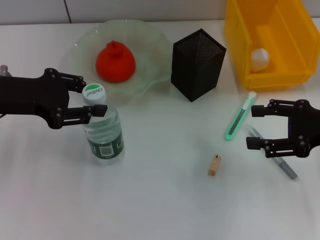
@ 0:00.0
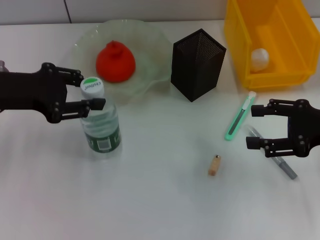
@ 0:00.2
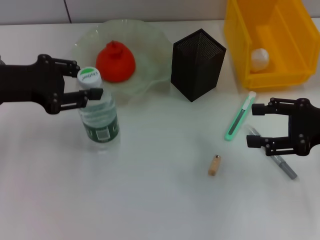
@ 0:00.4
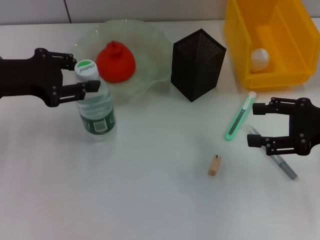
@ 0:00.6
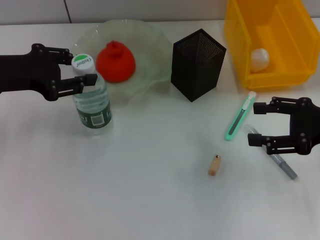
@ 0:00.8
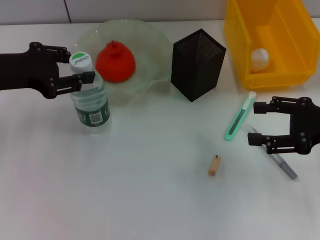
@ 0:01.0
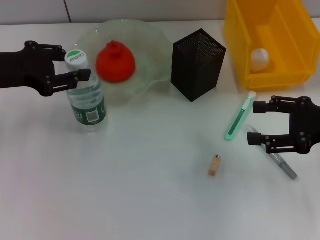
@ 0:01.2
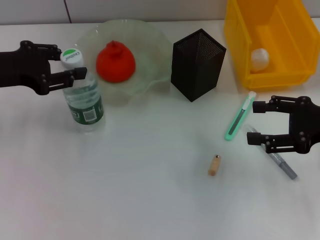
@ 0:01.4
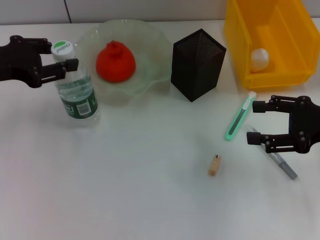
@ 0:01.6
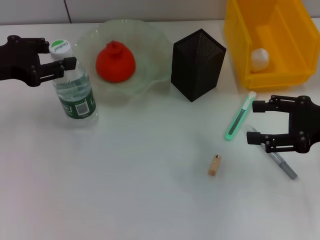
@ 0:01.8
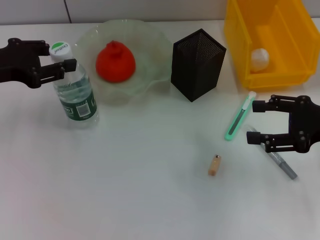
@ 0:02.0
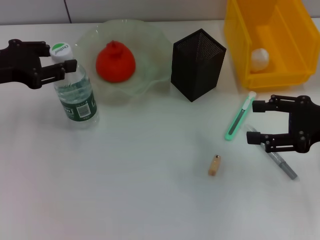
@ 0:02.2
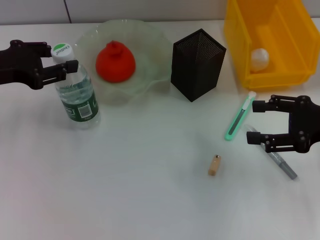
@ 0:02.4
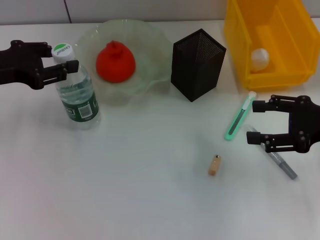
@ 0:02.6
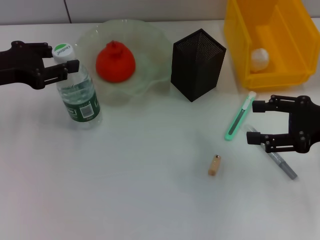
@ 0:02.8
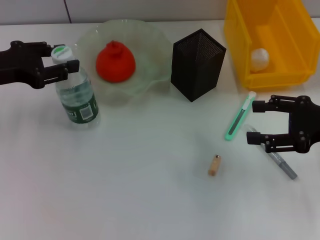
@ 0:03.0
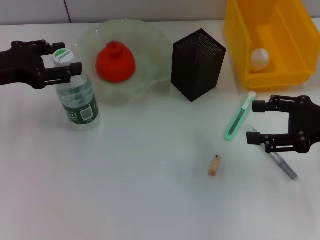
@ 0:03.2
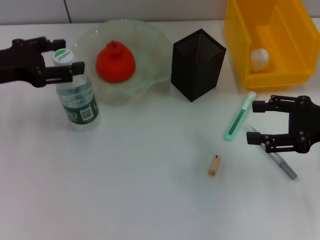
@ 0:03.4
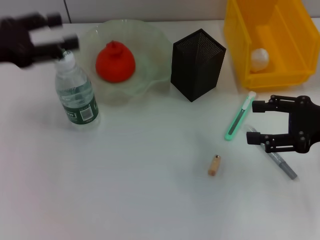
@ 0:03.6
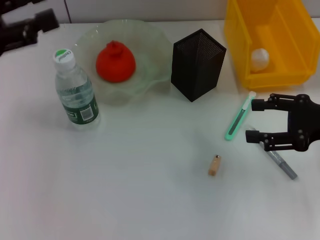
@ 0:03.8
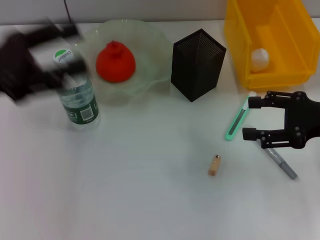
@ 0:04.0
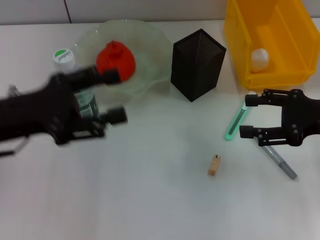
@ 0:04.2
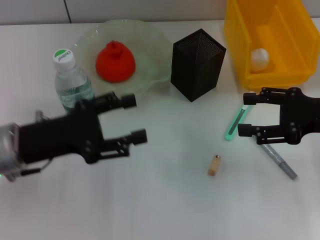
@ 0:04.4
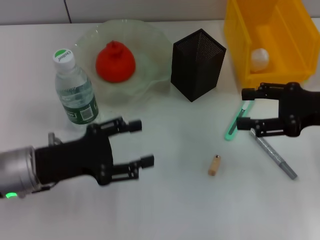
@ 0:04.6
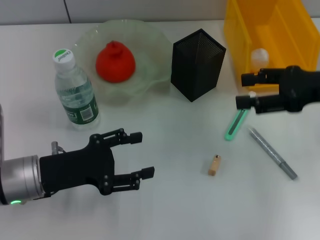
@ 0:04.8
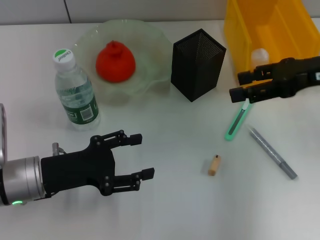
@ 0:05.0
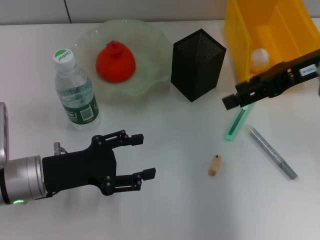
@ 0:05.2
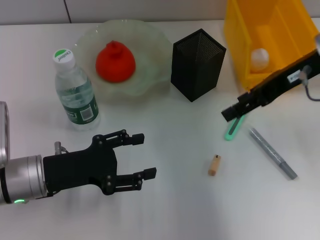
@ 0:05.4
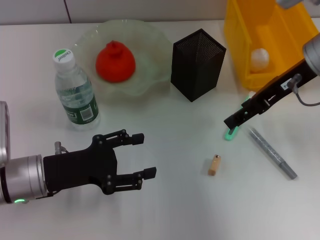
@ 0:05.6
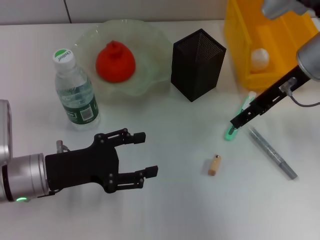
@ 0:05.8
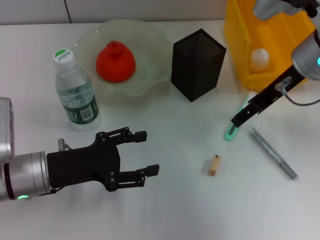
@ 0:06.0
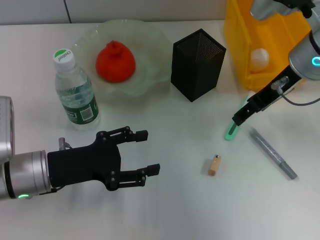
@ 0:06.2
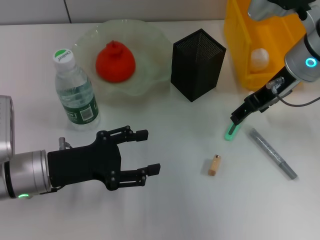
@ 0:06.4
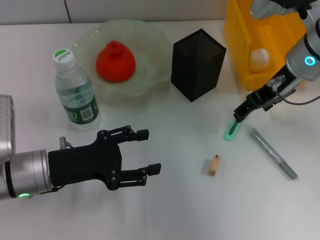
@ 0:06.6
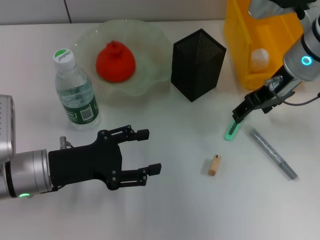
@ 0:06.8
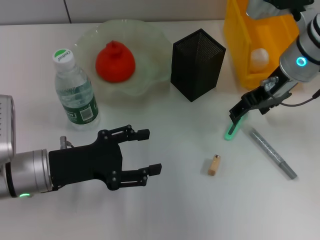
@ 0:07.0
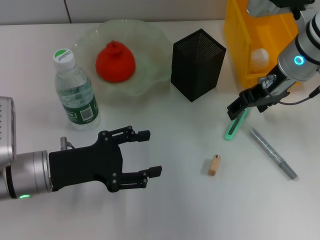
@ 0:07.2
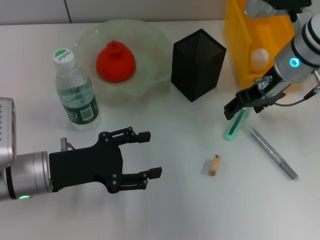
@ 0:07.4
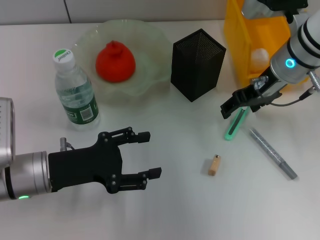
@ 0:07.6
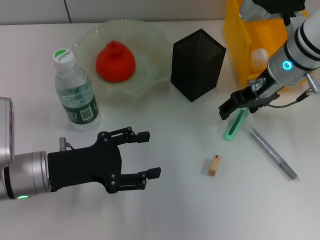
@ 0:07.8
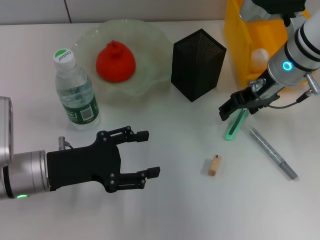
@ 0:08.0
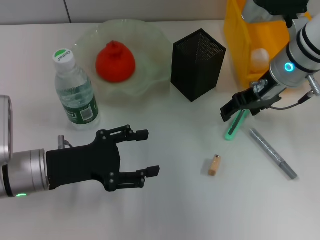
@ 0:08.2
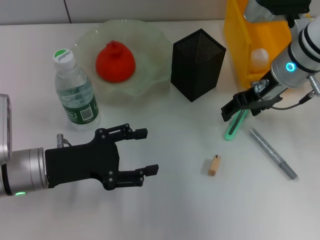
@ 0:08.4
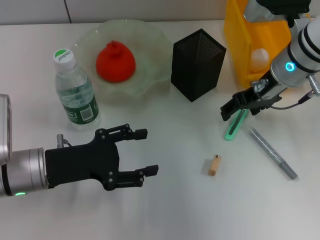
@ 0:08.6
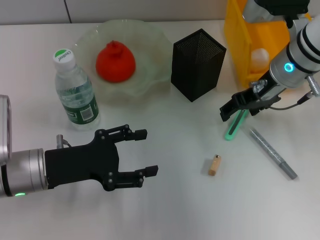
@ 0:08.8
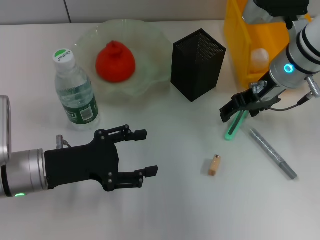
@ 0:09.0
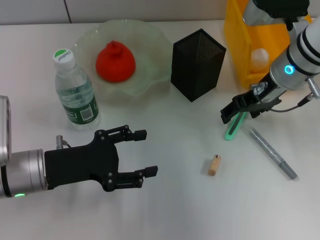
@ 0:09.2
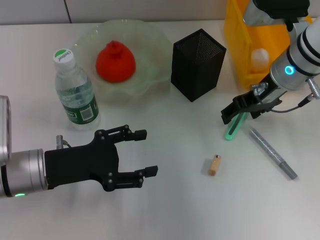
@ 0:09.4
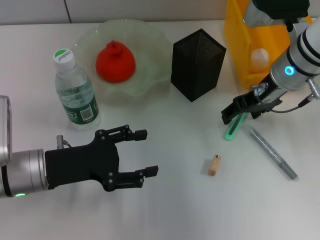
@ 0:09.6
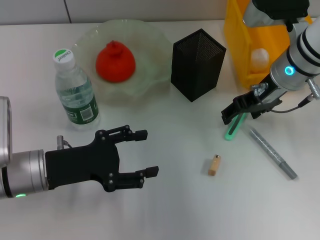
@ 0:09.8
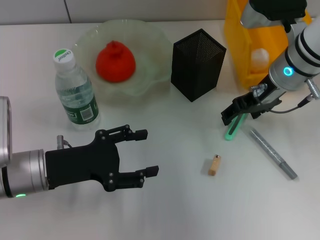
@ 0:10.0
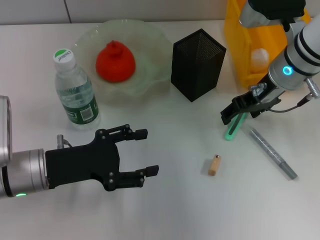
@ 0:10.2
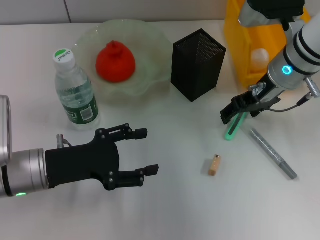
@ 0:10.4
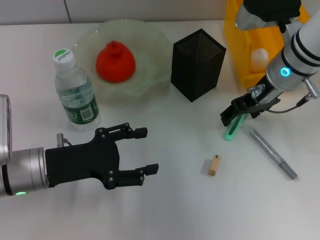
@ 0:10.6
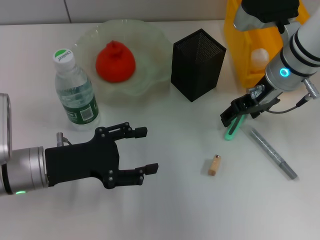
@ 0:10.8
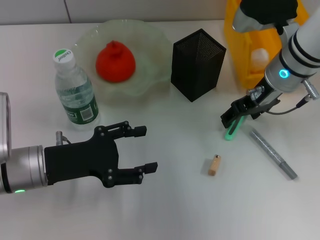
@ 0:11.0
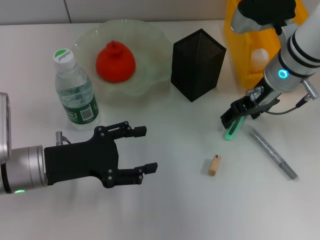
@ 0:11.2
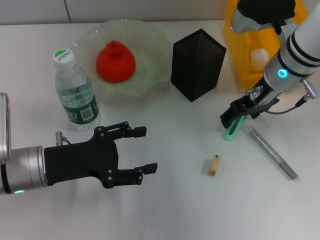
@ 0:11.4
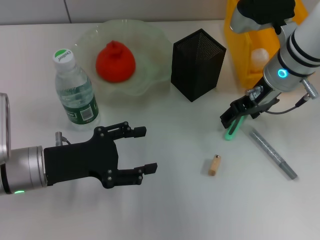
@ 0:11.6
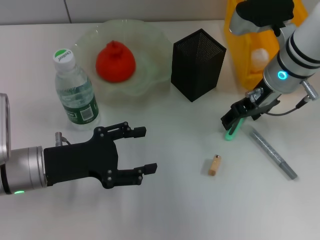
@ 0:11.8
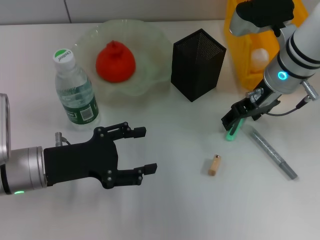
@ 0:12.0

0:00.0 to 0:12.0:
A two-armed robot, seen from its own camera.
Step, 0:00.0 to 0:03.4: Place the water bottle on the table with the left hand.
0:00.0 to 0:01.6: There are only small adjustments of the grippers.
0:01.6 to 0:03.0: There are only small adjustments of the grippers.
0:03.0 to 0:04.4: The left gripper moves backward, to the right and downward, roughly 10 cm, and opens.
0:04.4 to 0:06.0: The right gripper heads to the left, forward and upward, covering roughly 15 cm, while the left gripper changes place by approximately 5 cm.
0:07.6 to 0:10.4: The two grippers keep their place.
0:10.4 to 0:12.0: The grippers make only small movements.

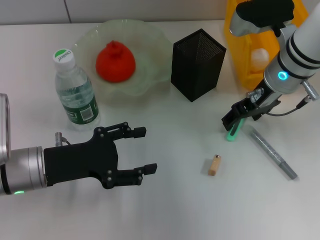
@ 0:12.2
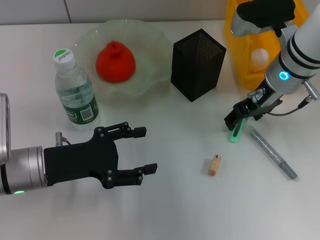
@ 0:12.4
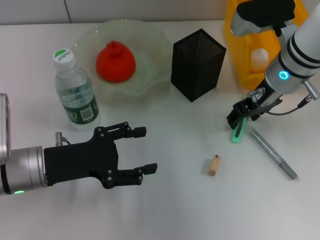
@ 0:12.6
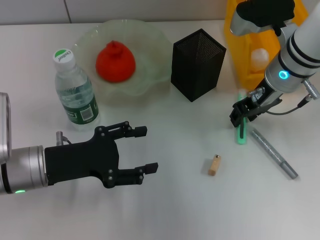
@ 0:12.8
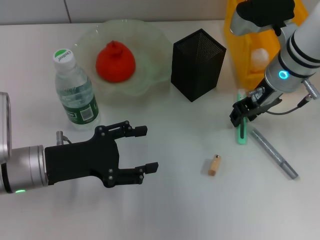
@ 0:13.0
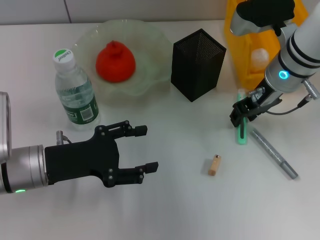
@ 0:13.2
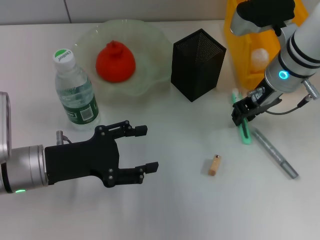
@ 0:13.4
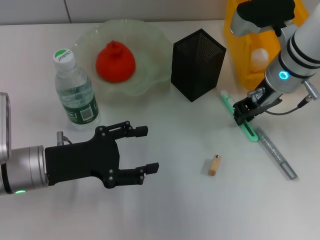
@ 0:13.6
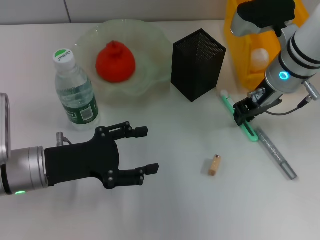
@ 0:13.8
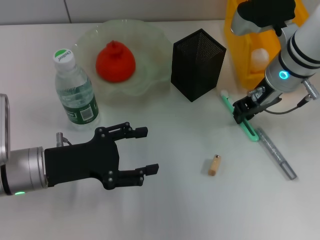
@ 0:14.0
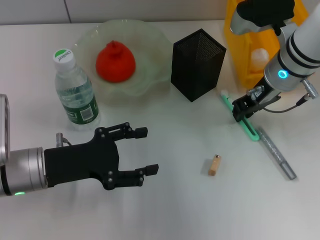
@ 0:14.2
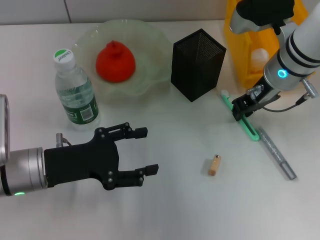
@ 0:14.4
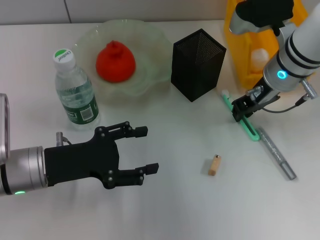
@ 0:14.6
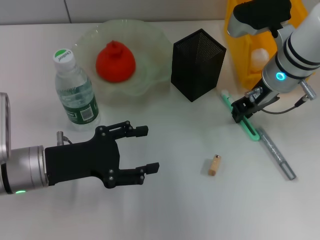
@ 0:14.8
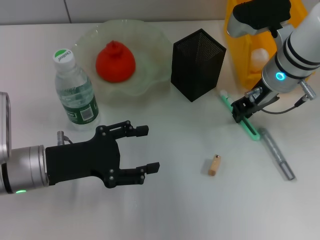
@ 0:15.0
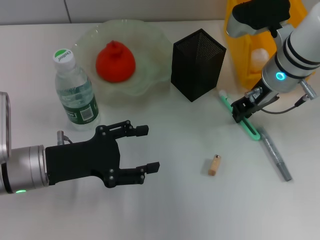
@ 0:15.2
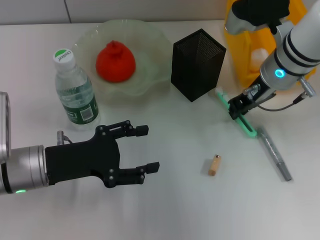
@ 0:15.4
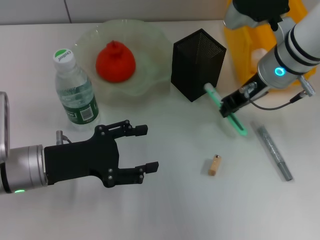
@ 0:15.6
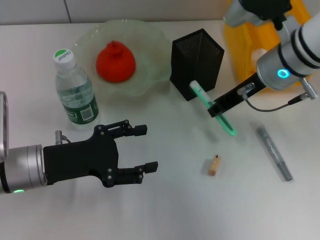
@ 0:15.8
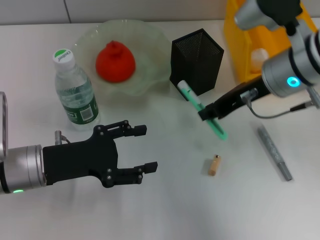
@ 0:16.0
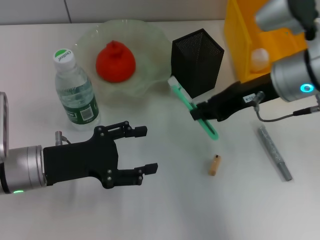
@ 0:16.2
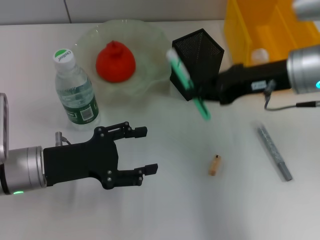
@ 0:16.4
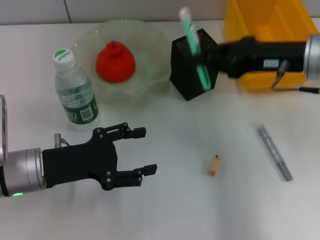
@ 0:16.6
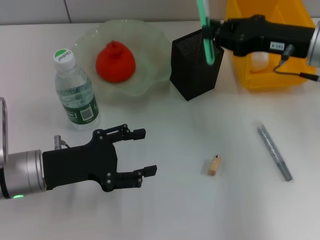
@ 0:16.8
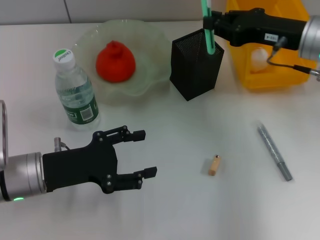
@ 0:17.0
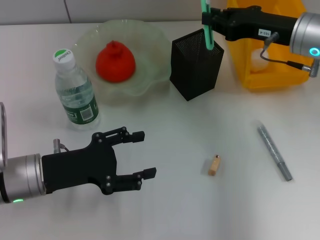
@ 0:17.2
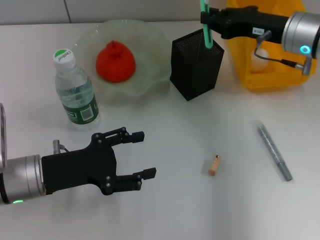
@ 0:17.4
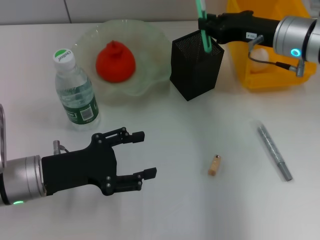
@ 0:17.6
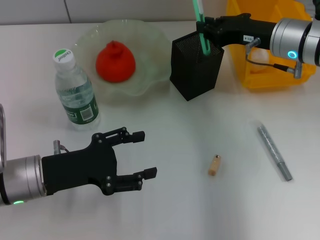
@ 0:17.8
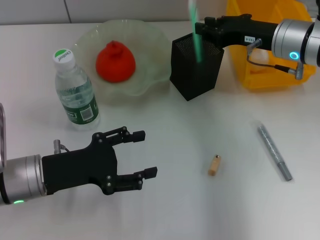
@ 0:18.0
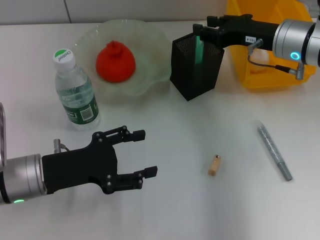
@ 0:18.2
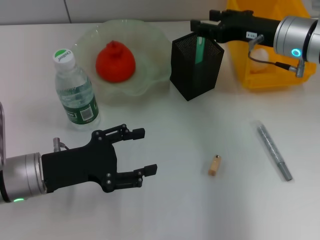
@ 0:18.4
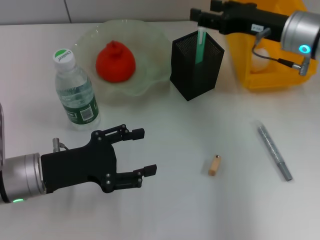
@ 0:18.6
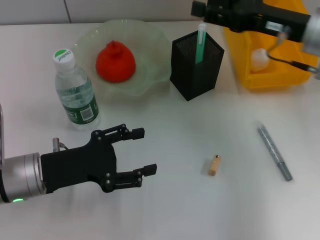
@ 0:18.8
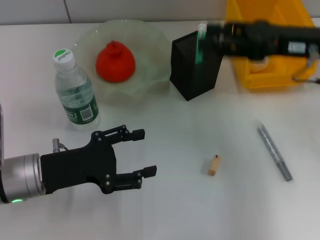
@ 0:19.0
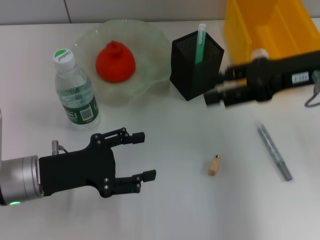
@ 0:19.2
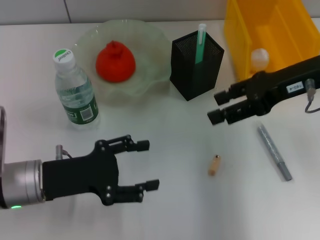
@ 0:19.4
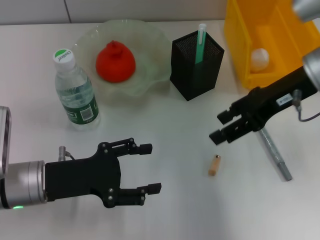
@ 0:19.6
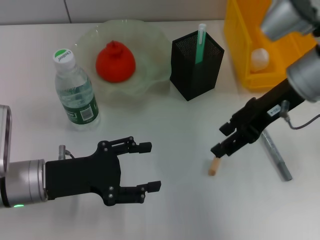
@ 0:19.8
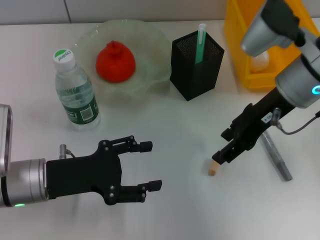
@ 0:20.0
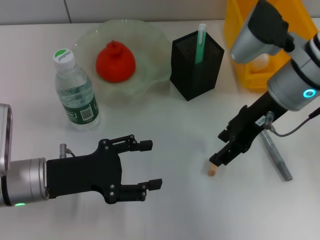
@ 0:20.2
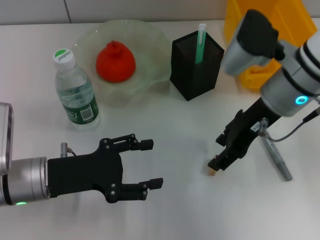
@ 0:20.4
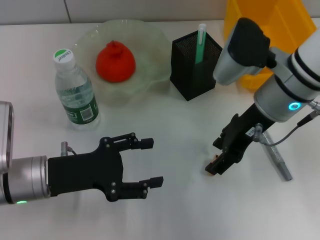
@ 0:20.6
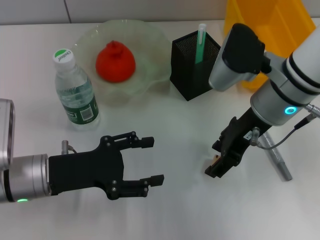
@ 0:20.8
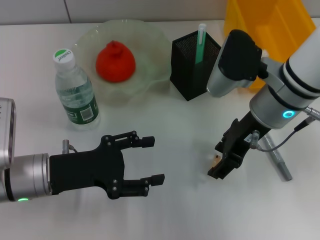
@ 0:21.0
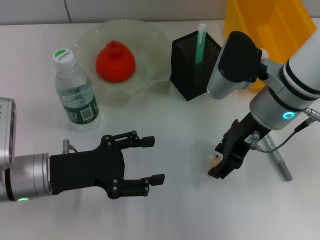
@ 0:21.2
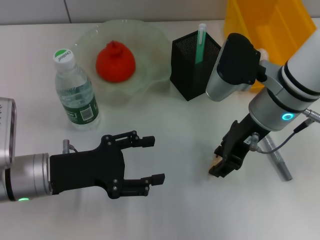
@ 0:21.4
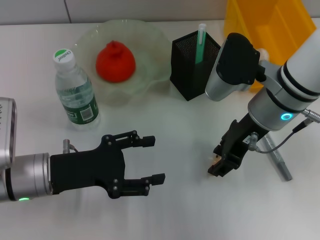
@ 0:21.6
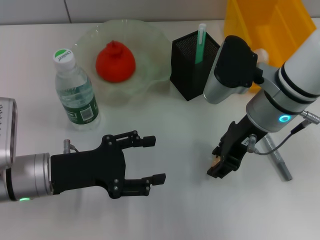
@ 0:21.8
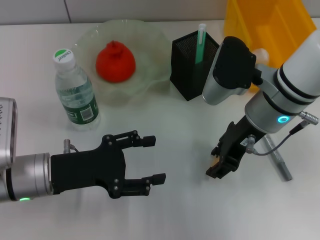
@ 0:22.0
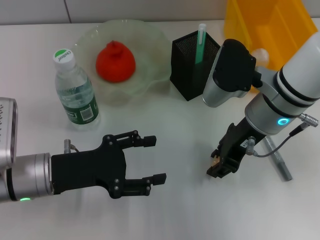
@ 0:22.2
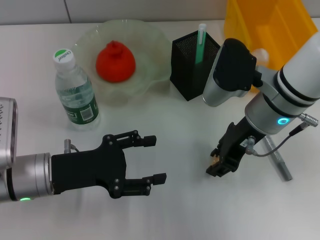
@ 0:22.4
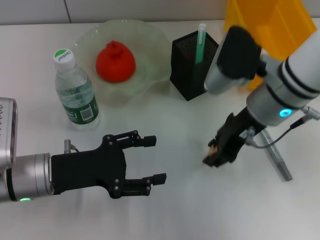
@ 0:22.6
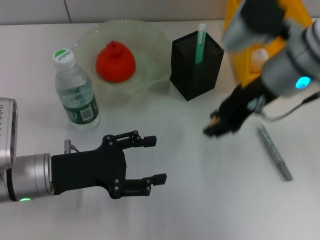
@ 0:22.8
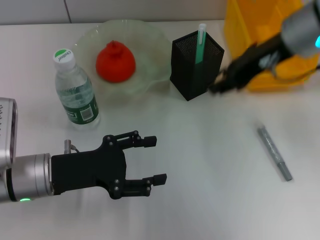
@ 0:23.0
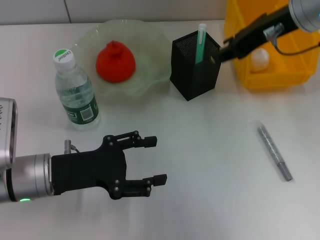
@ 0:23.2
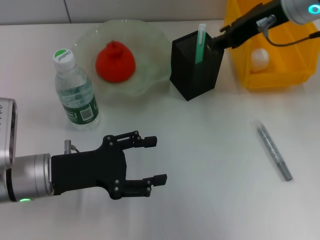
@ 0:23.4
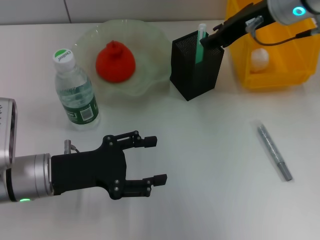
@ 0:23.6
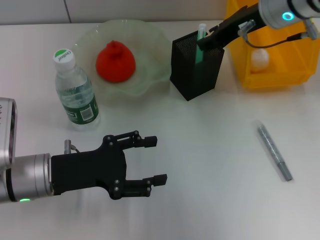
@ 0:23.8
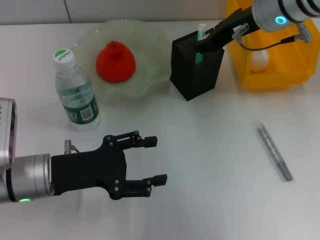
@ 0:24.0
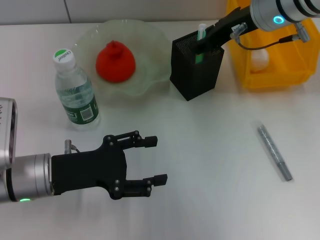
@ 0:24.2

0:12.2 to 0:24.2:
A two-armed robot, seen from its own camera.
Step, 0:12.2 to 0:15.0: Grab the blue utility knife with the right hand.
Step, 0:15.2 to 0:18.2: Place the blue utility knife into the pen holder with the right hand.
Step, 0:18.4 to 0:22.2: Grab the eraser with the right hand.
Step, 0:22.4 to 0:24.0: Put the eraser into the pen holder with the right hand.
0:12.2 to 0:13.8: The right gripper closes its fingers.
0:13.8 to 0:15.2: Both grippers stay about where they are.
0:15.2 to 0:16.6: The right gripper goes roughly 10 cm to the right and backward.
0:16.6 to 0:18.2: The right gripper moves forward, about 5 cm.
0:18.2 to 0:19.8: The right gripper ends up about 5 cm from where it was, and opens its fingers.
0:19.8 to 0:21.2: The right gripper ends up some 5 cm from where it was.
0:21.2 to 0:22.6: The right gripper closes.
0:22.6 to 0:24.2: The right gripper heads forward and upward, covering some 10 cm.
